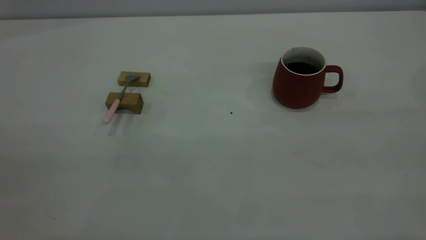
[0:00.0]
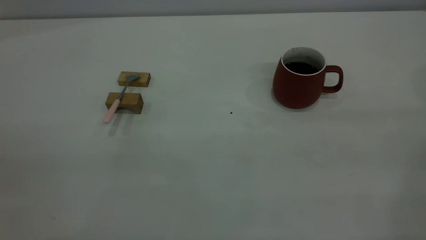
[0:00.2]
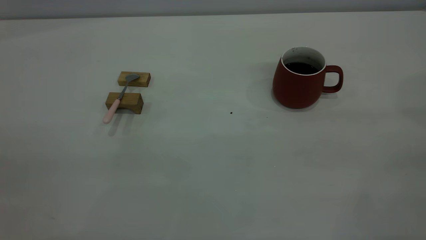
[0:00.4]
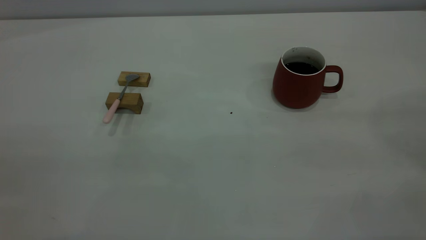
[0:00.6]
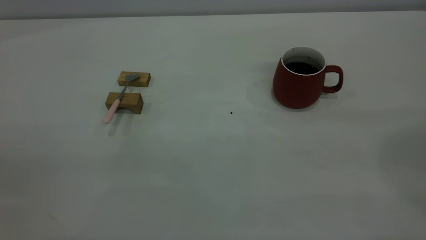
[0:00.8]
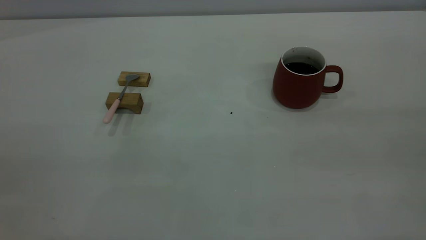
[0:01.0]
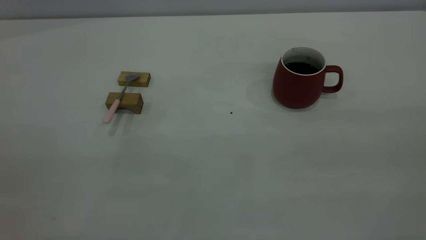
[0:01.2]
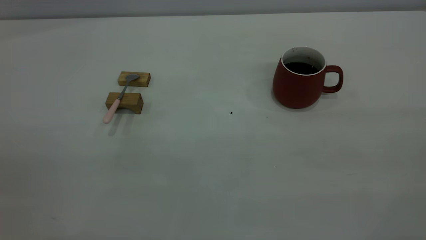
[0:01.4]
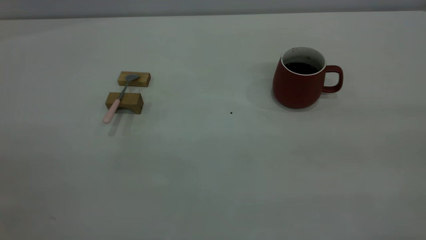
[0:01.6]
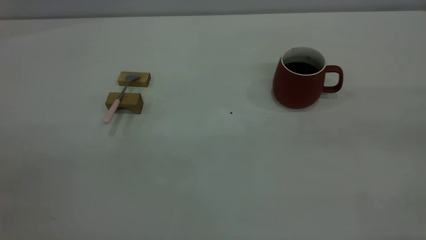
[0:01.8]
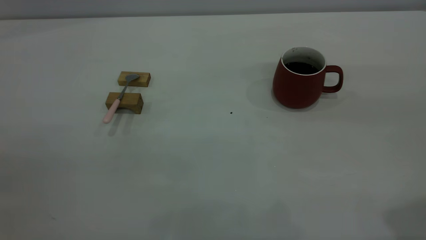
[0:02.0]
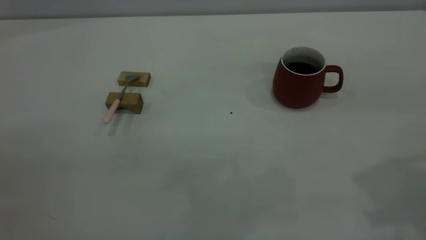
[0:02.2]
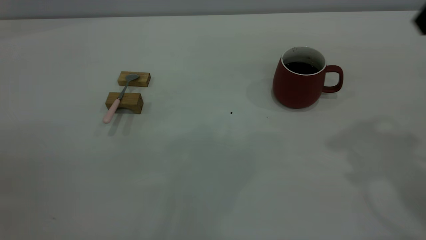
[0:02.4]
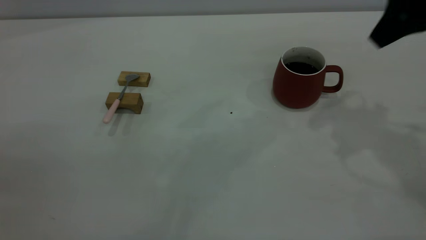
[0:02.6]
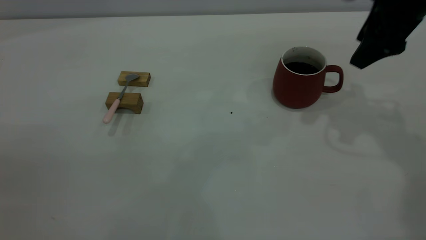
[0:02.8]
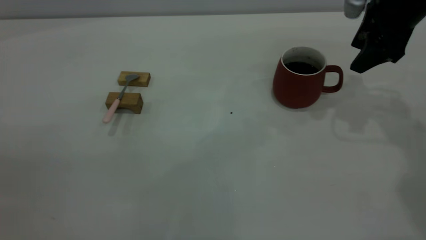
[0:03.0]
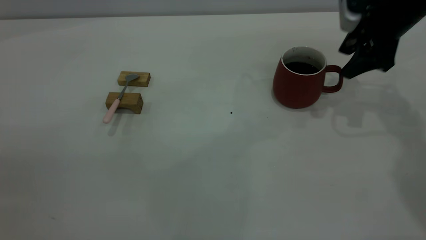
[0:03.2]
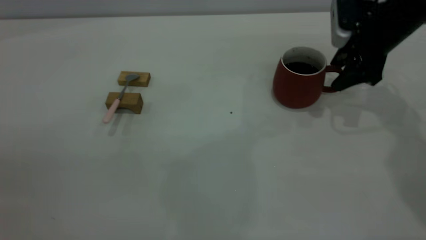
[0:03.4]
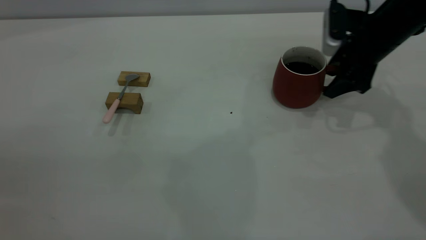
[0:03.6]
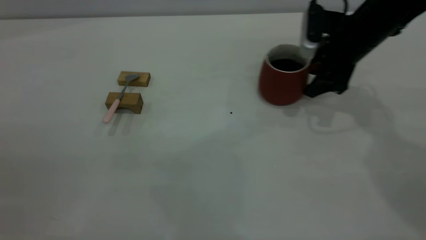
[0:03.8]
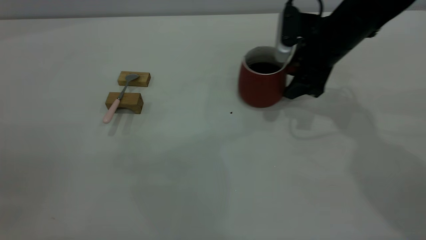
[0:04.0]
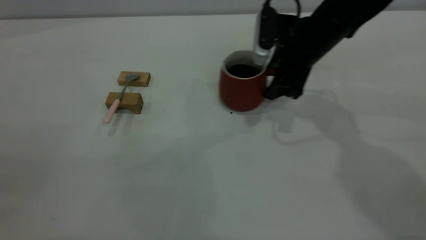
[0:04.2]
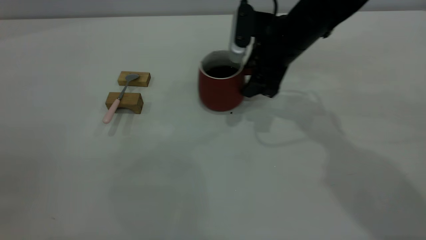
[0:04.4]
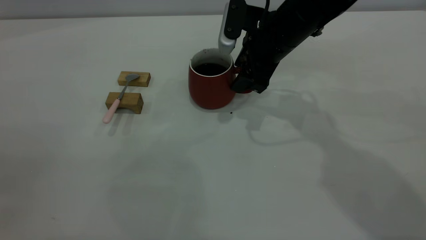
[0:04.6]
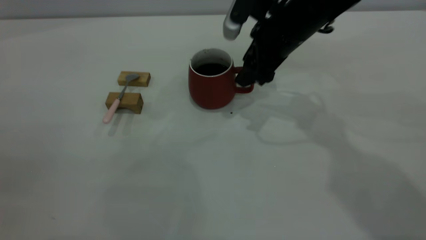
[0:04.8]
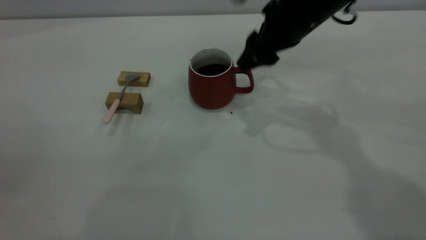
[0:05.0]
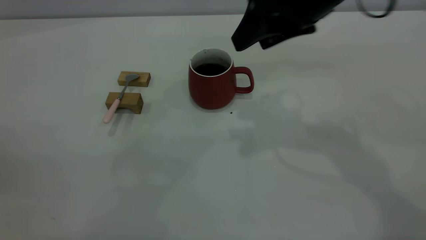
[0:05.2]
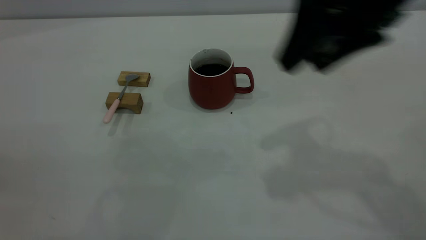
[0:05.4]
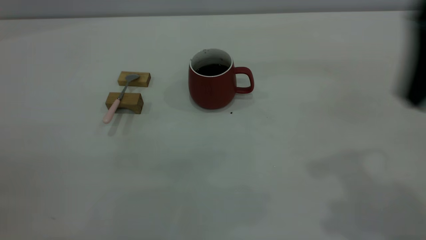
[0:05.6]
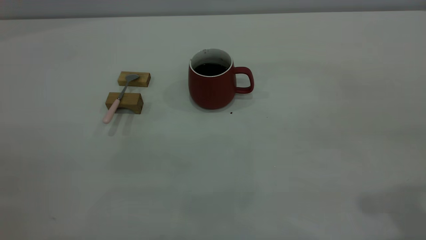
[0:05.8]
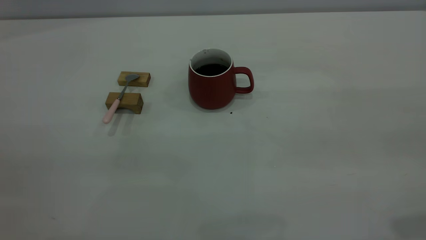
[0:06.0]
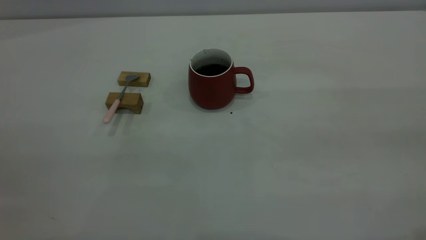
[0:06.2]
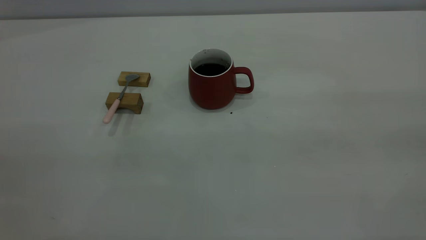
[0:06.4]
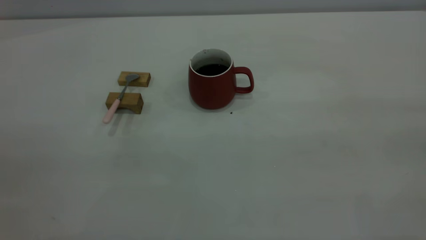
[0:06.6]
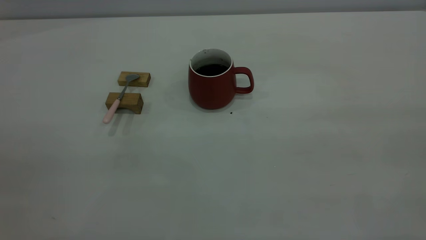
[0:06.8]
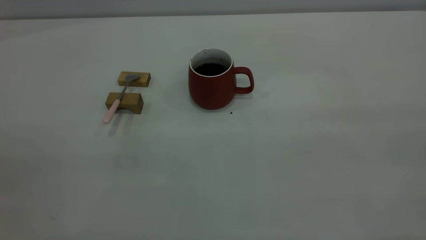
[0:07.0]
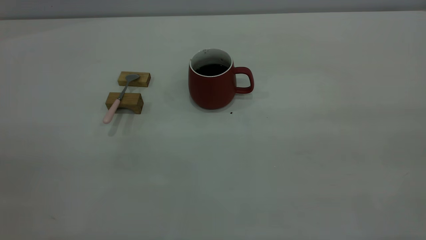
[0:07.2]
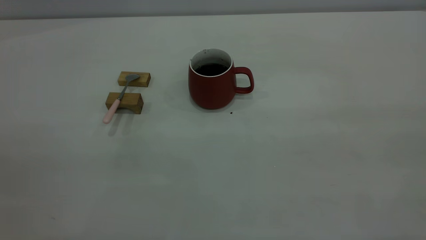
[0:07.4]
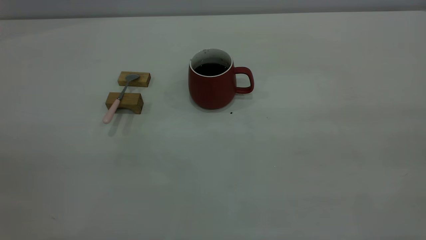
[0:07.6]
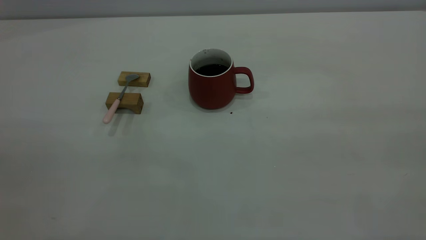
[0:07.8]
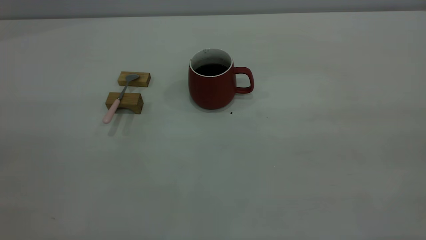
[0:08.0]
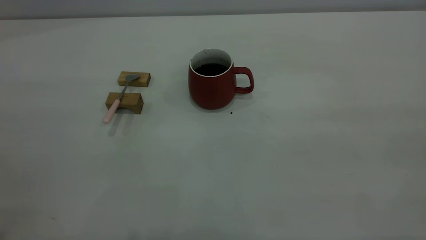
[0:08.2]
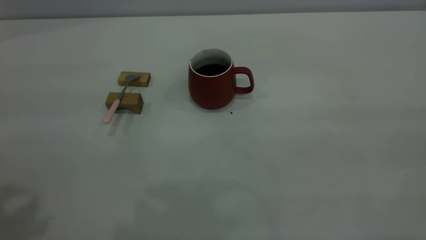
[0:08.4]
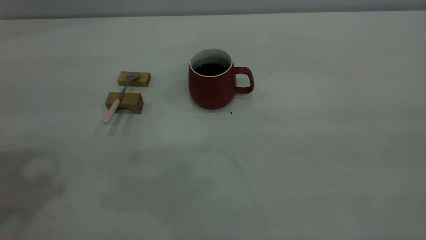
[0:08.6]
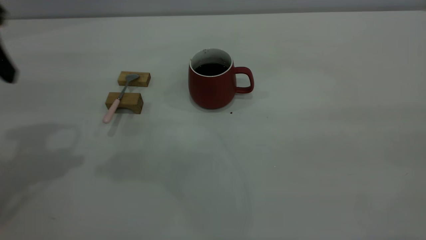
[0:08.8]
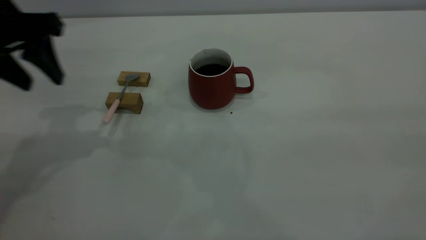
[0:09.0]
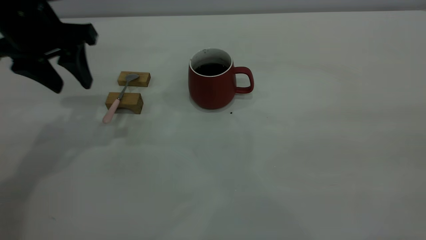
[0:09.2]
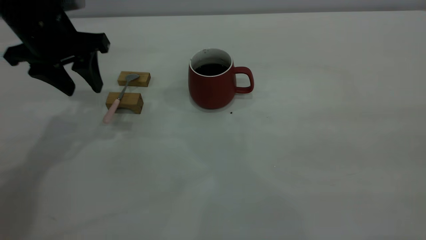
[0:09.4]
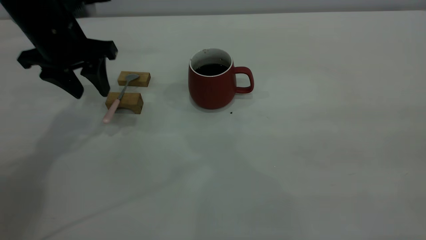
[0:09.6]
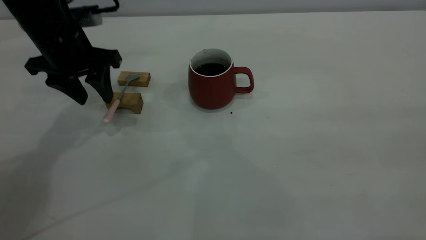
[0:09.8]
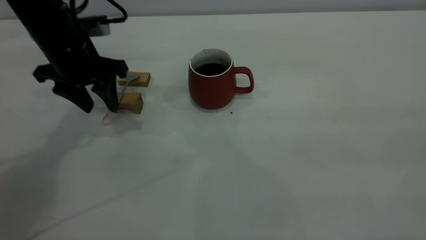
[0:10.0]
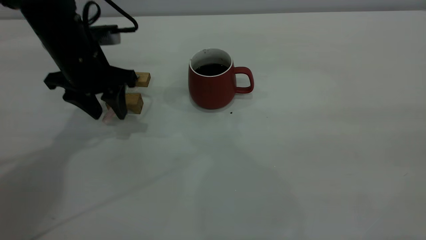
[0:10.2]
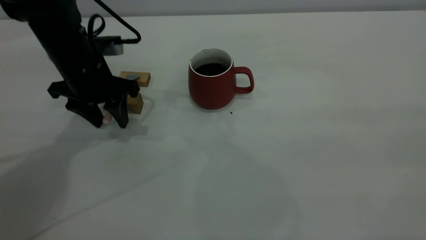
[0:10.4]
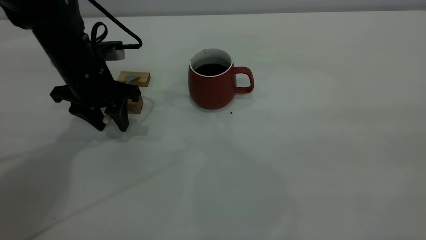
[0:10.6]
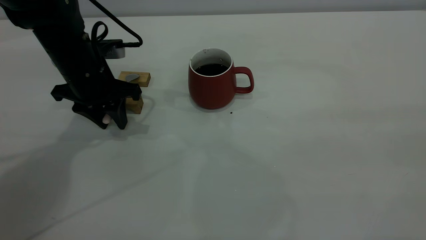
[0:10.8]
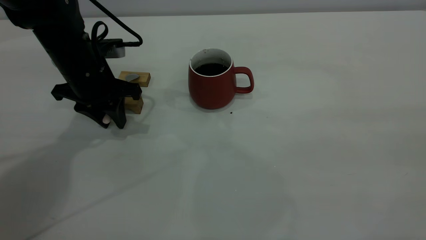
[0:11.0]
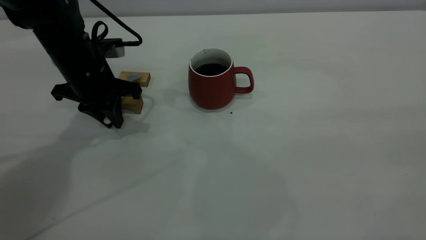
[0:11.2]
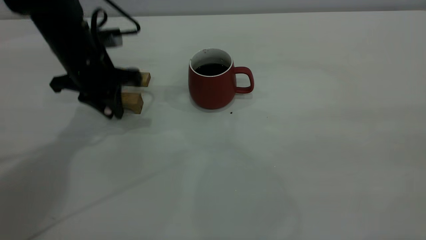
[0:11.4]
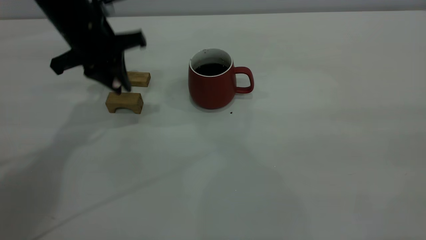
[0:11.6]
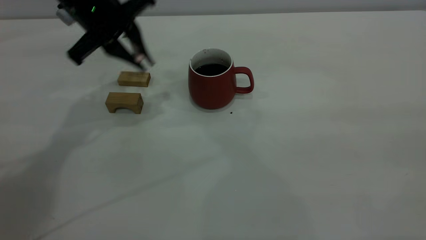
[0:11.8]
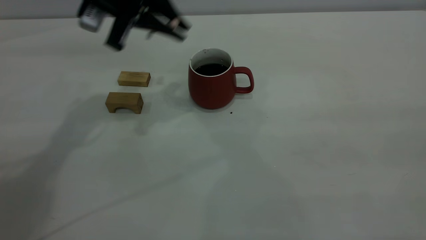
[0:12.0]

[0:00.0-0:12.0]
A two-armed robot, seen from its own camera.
Step, 0:00.0 to 0:04.8: Move the cup with coffee to the center of view.
Step, 0:05.2 to 0:11.4: Pick up the spoon.
0:01.6 to 0:03.0: The right gripper heads forward and downward, covering approximately 40 cm, and opens its fingers.
0:03.0 to 0:04.4: The right gripper travels to the left by approximately 15 cm.
0:04.4 to 0:06.0: The right gripper goes approximately 40 cm backward, upward and to the right.
0:07.6 to 0:09.0: The left gripper travels forward and downward by about 35 cm.
0:09.0 to 0:10.4: The left gripper moves downward, some 10 cm.
0:10.4 to 0:12.0: The left gripper is displaced upward and to the right by about 15 cm, and closes up.

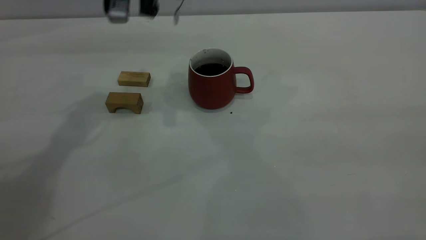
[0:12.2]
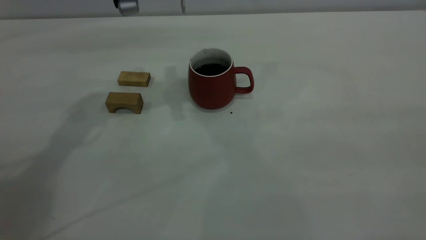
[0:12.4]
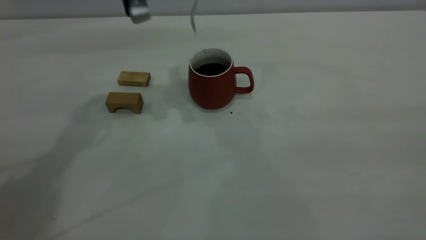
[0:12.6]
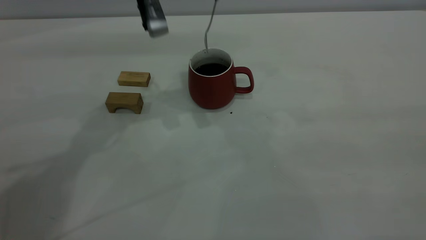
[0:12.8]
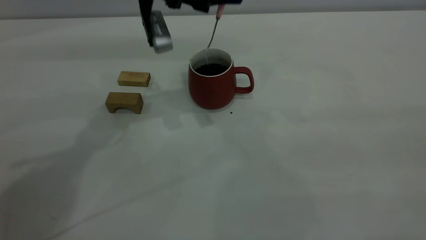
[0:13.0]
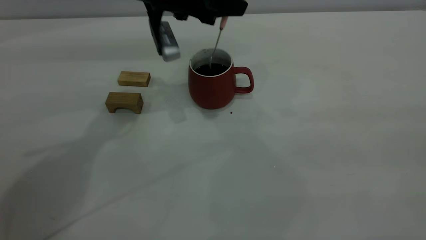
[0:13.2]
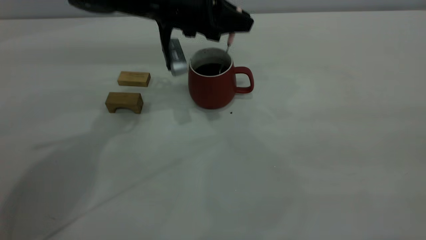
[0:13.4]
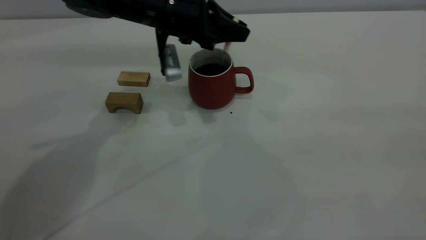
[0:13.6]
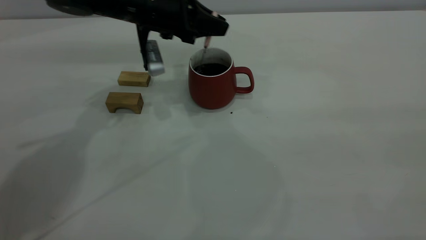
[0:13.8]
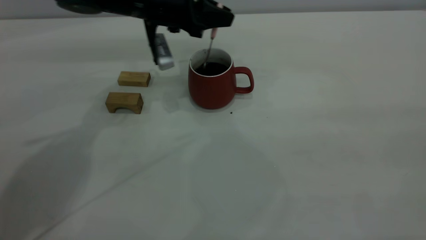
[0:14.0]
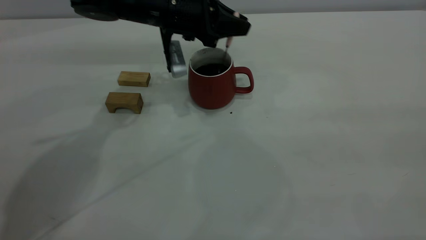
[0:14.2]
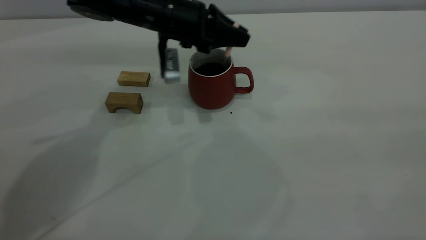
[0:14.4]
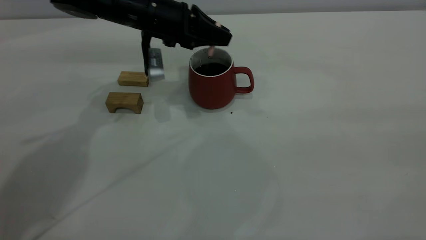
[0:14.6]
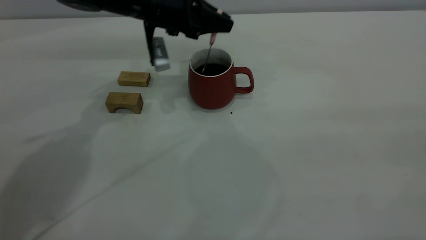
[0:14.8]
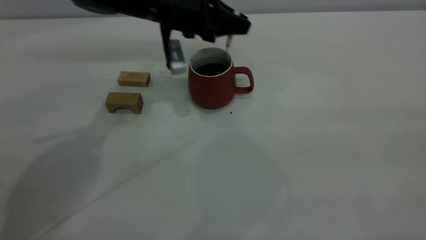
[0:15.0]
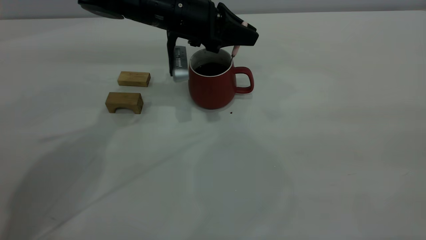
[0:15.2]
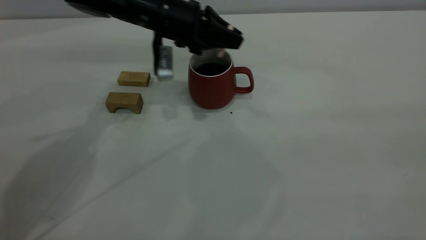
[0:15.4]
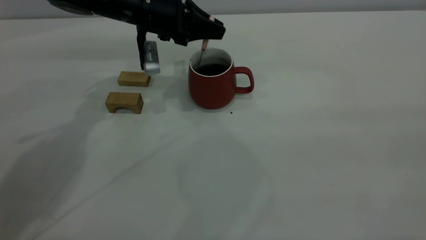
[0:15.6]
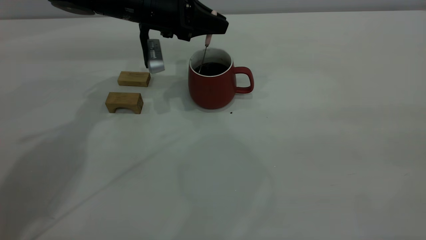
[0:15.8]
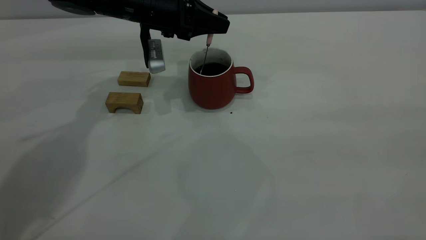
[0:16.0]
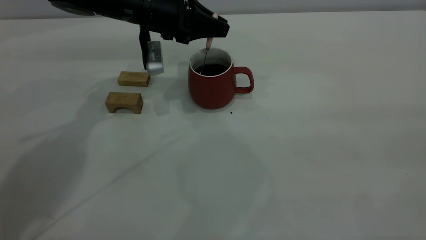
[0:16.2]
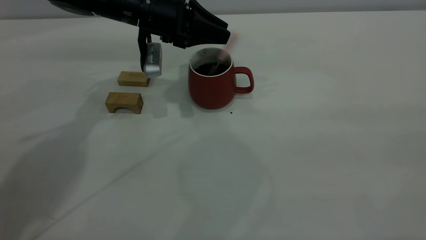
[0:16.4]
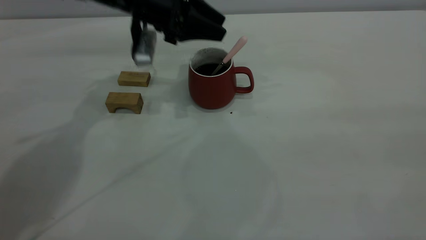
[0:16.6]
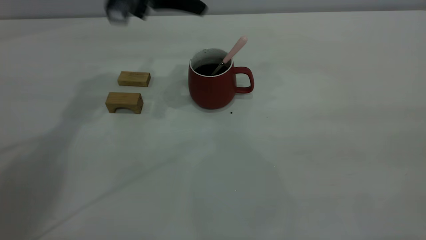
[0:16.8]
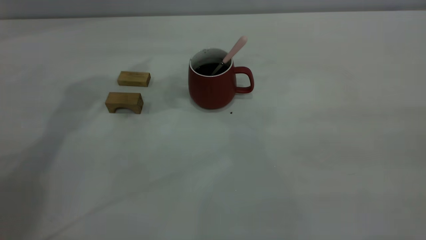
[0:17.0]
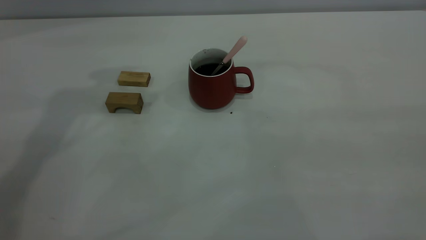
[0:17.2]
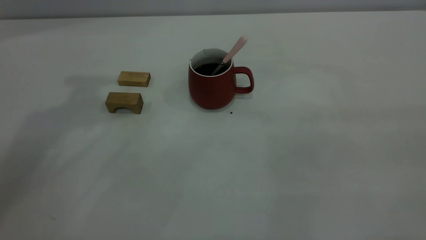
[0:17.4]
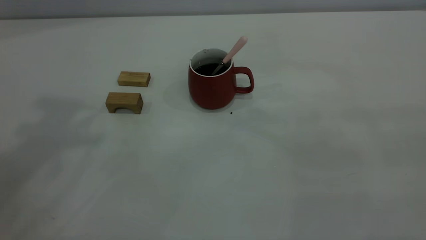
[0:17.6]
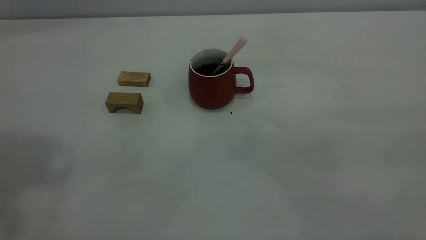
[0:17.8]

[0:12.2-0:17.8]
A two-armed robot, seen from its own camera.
Step, 0:12.2 to 0:16.4: Stir the coffee in the cup.
0:12.2 to 0:13.6: The left gripper travels downward by some 10 cm.
0:13.6 to 0:15.0: The grippers stay close to where they were, moving slightly.
0:15.0 to 0:16.4: The left gripper opens its fingers.
0:16.4 to 0:17.8: The left gripper is displaced upward and backward by roughly 50 cm.
